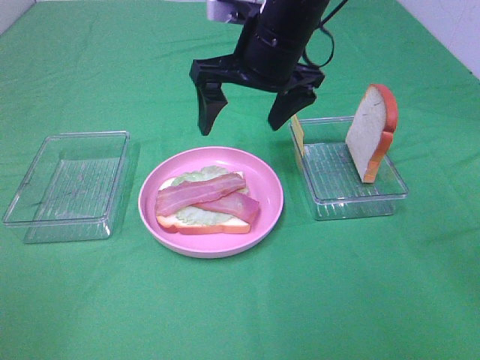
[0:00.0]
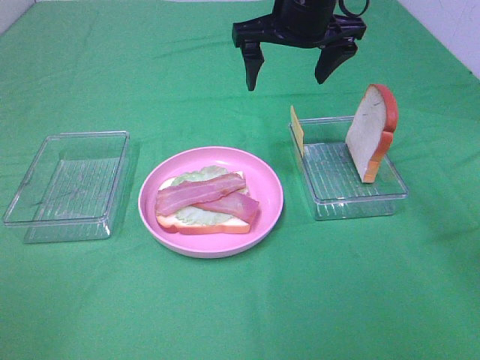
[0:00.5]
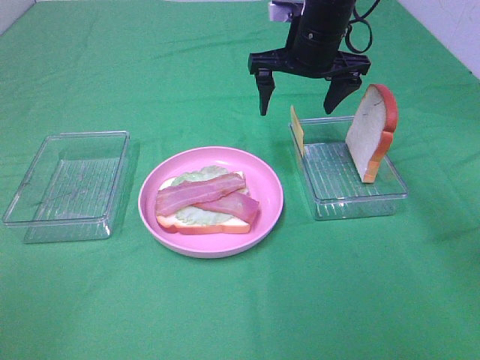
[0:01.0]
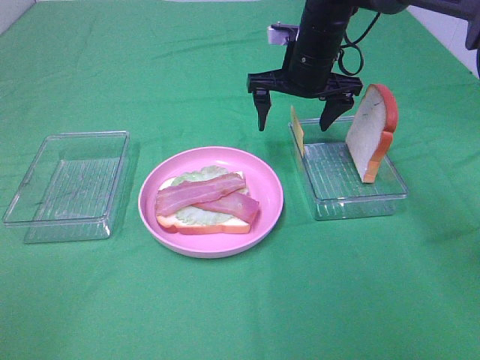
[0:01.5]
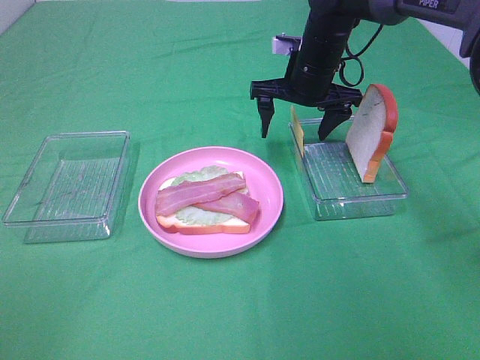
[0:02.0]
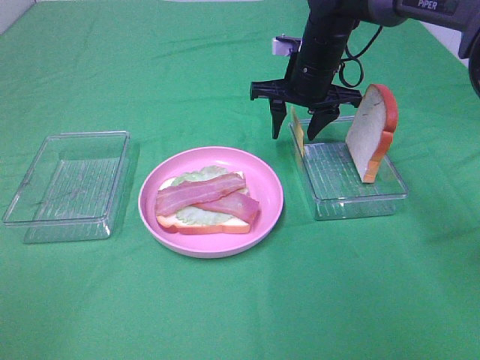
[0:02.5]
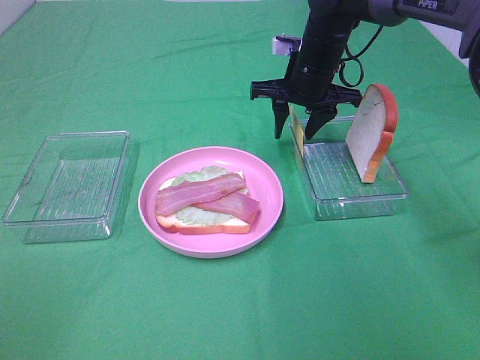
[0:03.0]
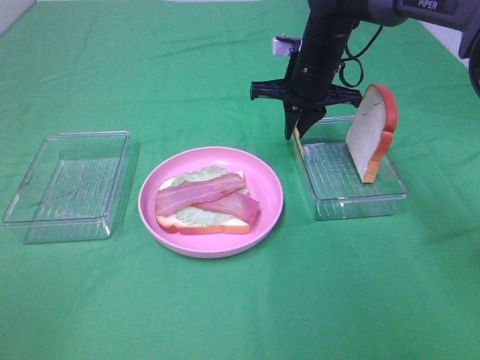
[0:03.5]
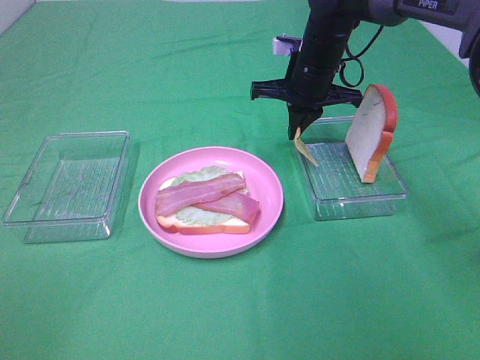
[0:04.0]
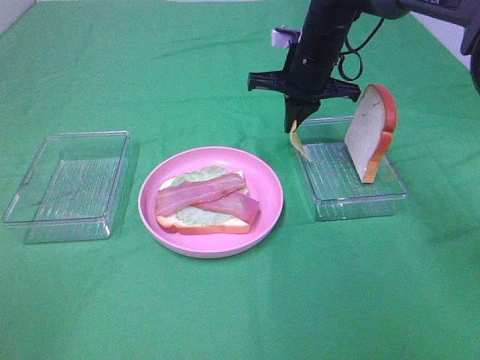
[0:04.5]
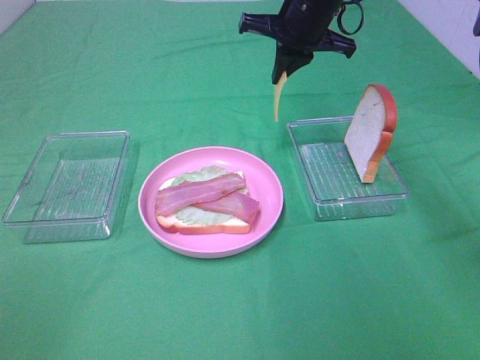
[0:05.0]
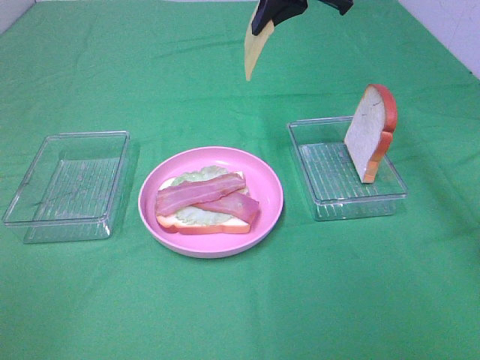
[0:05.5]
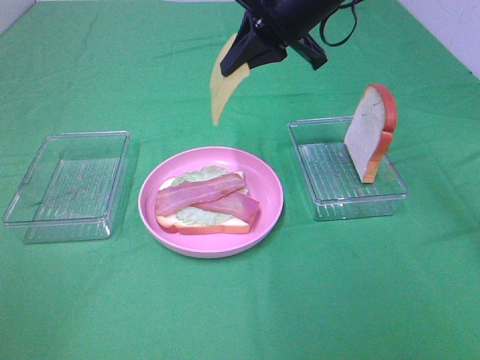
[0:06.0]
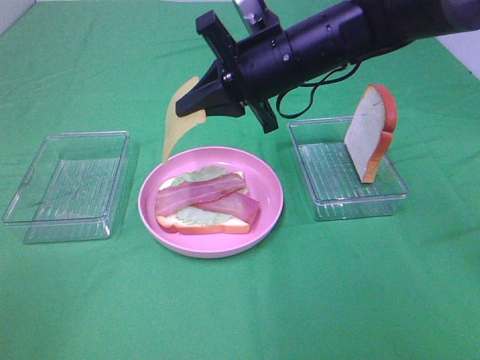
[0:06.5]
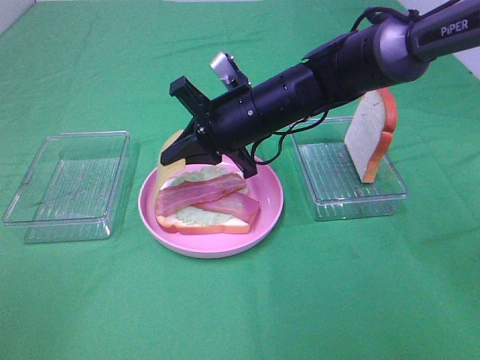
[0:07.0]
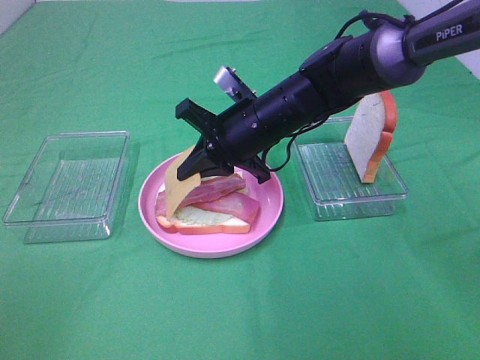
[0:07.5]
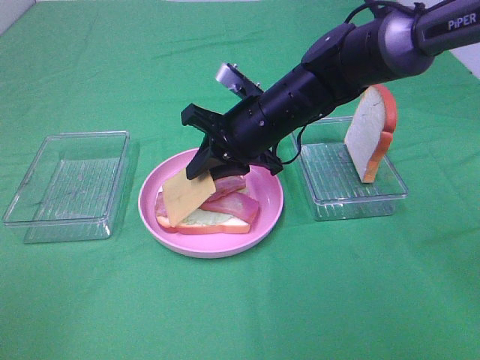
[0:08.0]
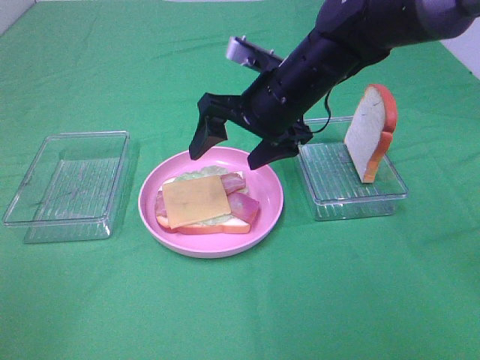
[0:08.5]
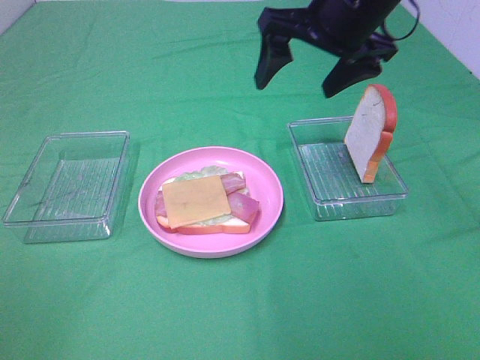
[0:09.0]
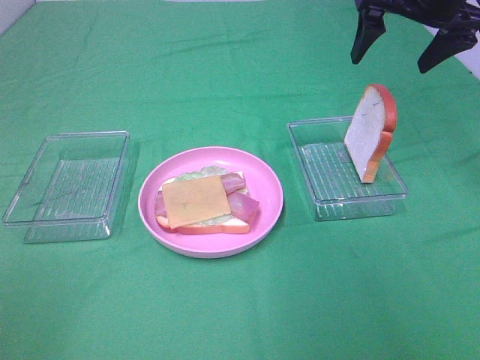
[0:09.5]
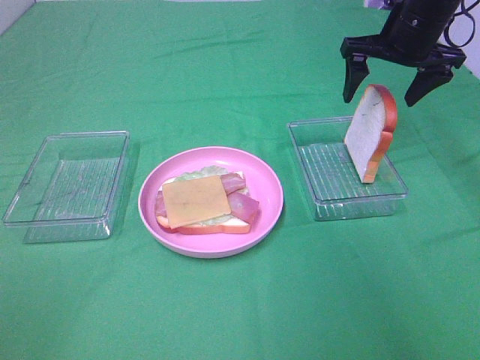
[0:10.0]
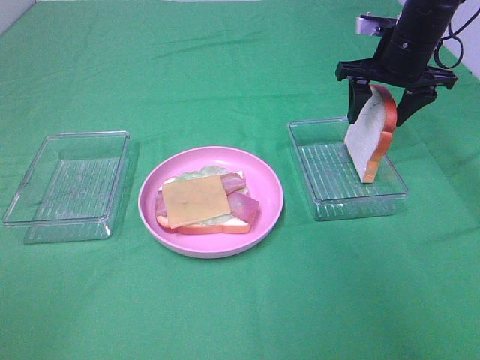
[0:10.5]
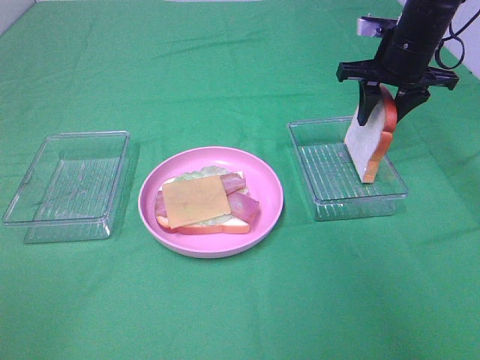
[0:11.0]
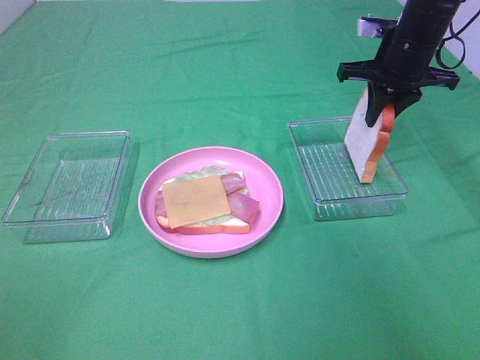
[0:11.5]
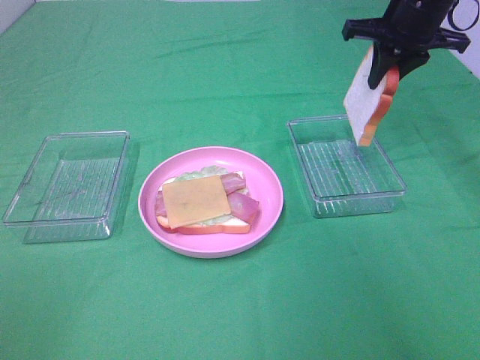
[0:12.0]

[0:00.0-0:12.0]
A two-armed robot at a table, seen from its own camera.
Task of the whole recording: Make sandwiches.
Step, 0:00.0 to 0:03.5: Right hand:grab the cheese slice.
Step, 0:04.0 to 0:08.0: Right hand:place the cheese slice on top of the bacon.
Step, 0:08.5 to 0:11.5: Right hand:grab the bread slice.
0:00.0 to 0:02.0: The right gripper shifts about 15 cm forward, downward and to the right.
0:02.0 to 0:04.0: The right gripper closes up.
0:04.0 to 0:06.0: The right gripper goes about 15 cm upward and backward.
0:06.0 to 0:08.0: The right gripper shifts about 15 cm downward.
0:08.0 to 0:10.0: The right gripper goes approximately 20 cm to the right, forward and upward, and opens up.
0:10.0 to 0:12.0: The right gripper closes its fingers.

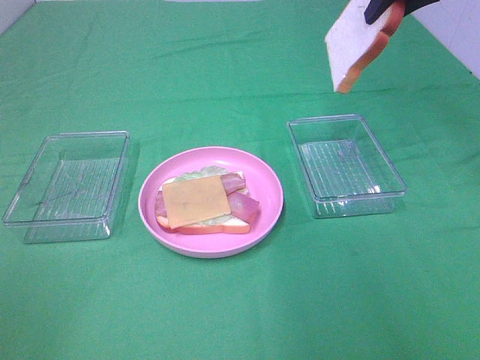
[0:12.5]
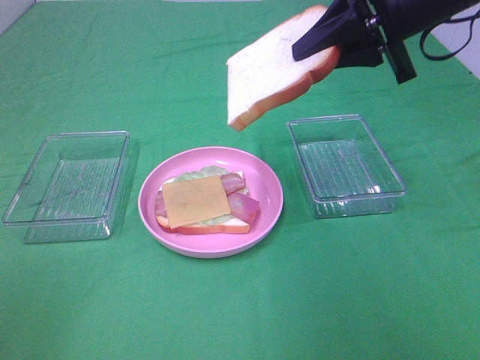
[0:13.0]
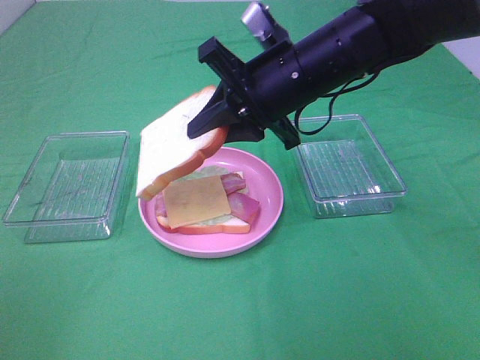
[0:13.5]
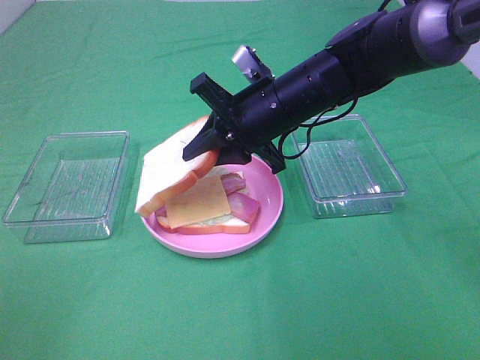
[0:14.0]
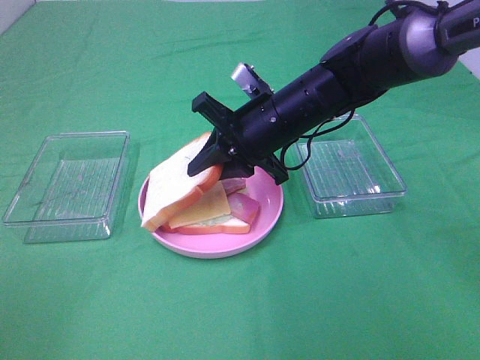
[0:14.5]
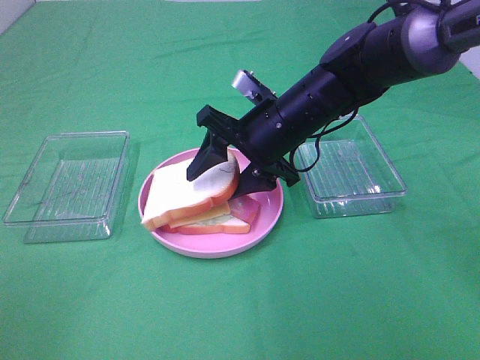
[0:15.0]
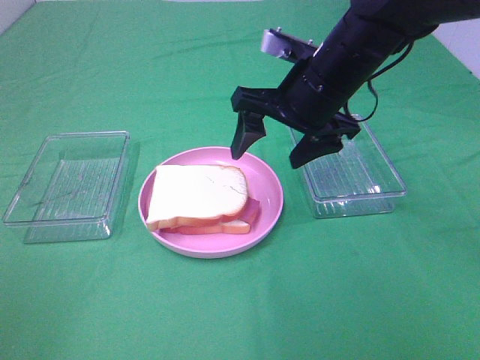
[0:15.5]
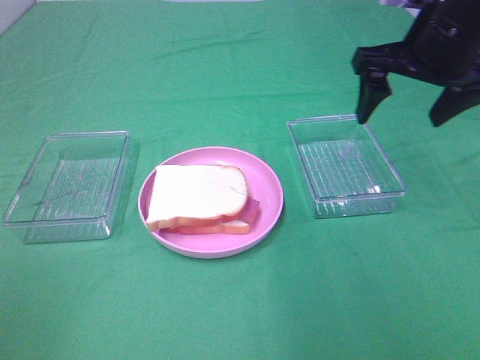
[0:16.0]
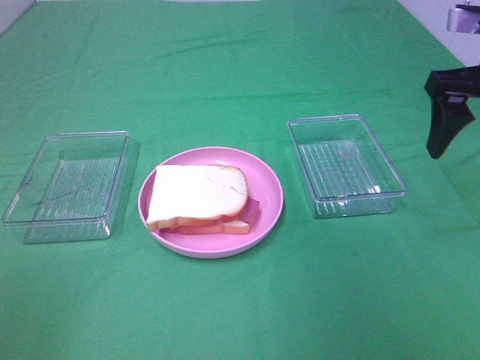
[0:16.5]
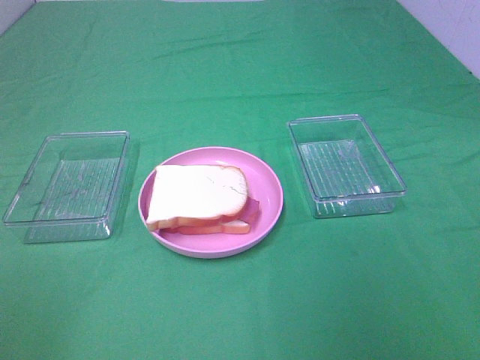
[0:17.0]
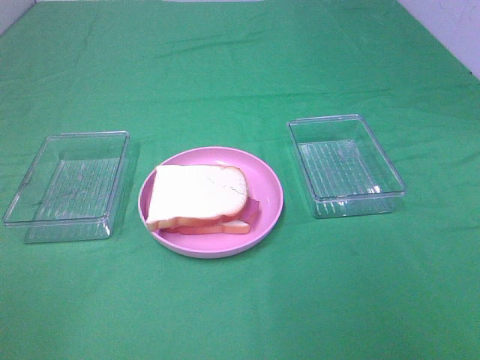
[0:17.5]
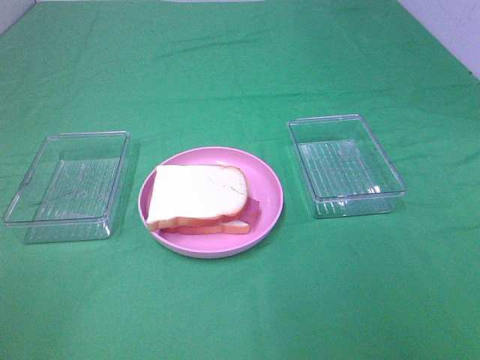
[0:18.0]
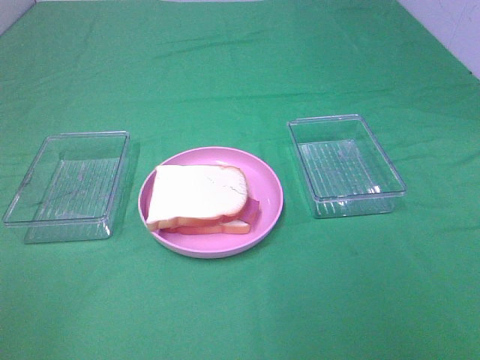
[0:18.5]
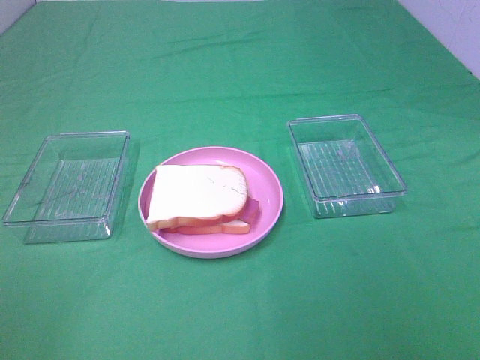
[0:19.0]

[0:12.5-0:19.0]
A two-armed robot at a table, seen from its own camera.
Task of the whole recording: Make sandwiches.
Step, 0:12.5 to 0:15.0: Right hand:place the bread slice on the cheese slice.
0:12.5 to 0:14.5: The right gripper shifts roughly 25 cm downward and to the left.
0:14.5 to 0:17.0: The right gripper is displaced backward, to the right and upward by some 35 cm, and opens.

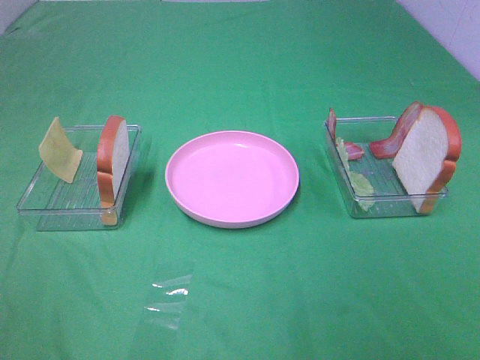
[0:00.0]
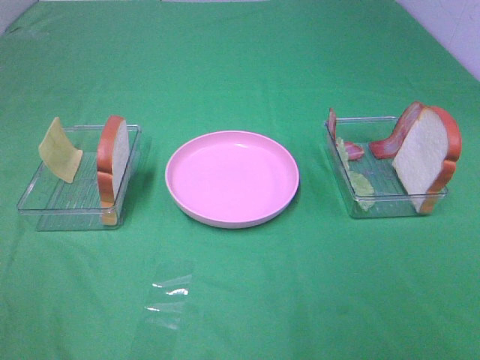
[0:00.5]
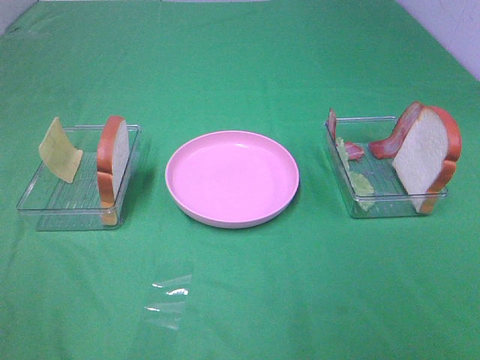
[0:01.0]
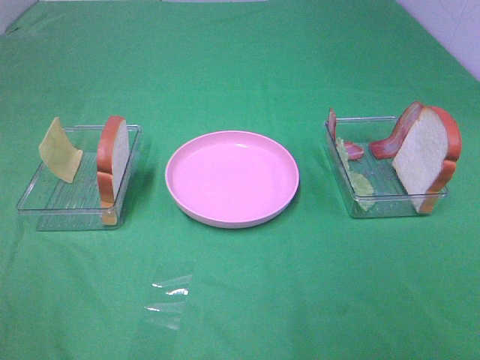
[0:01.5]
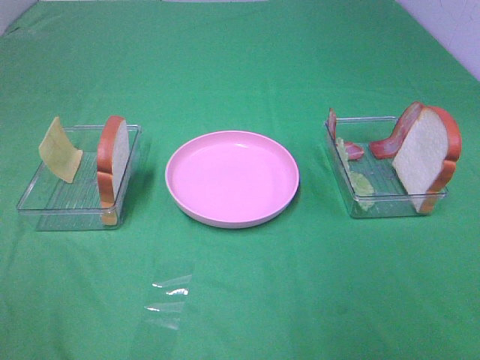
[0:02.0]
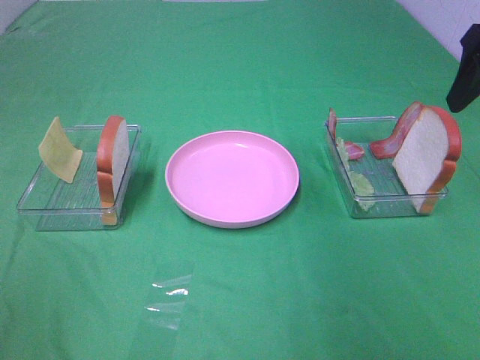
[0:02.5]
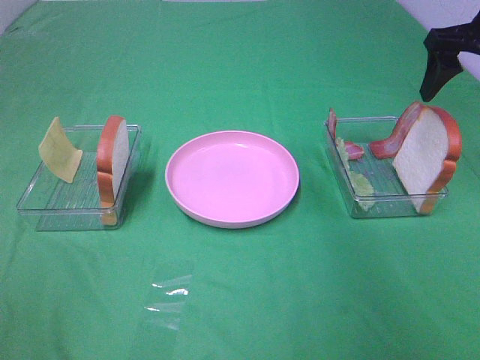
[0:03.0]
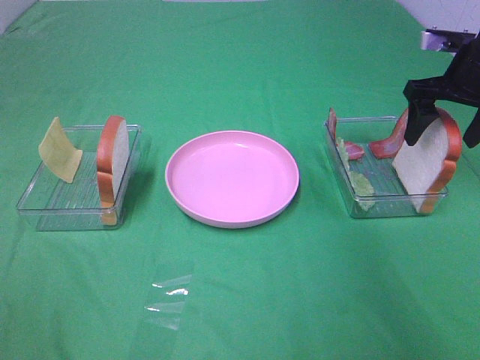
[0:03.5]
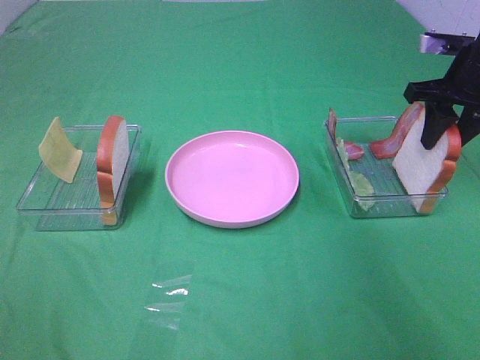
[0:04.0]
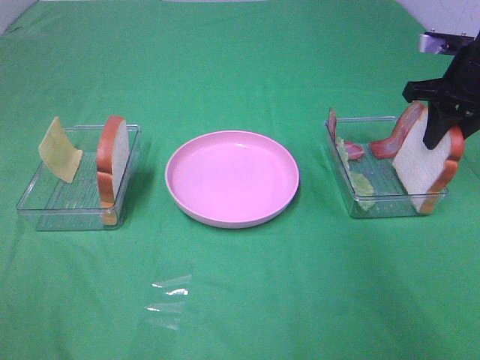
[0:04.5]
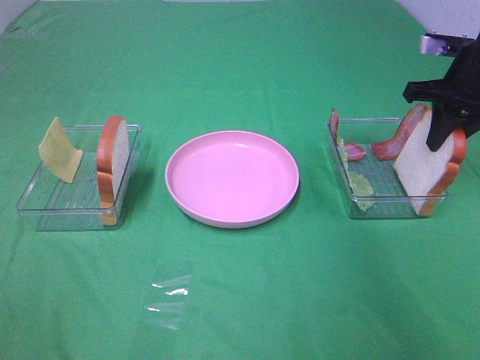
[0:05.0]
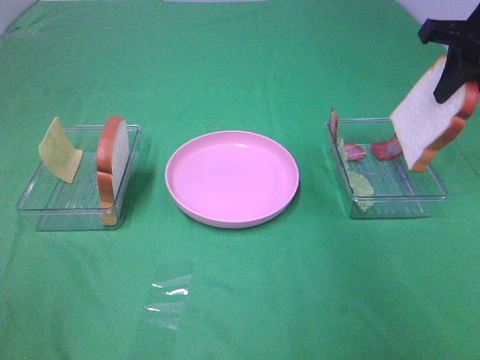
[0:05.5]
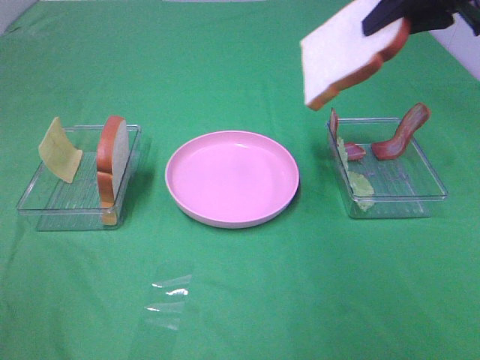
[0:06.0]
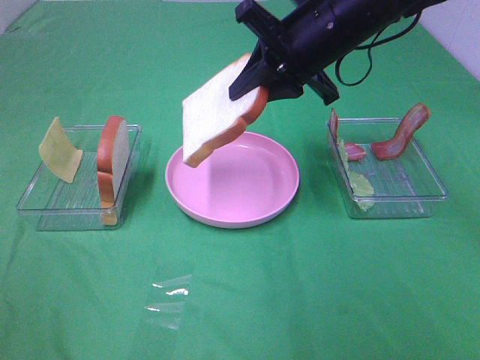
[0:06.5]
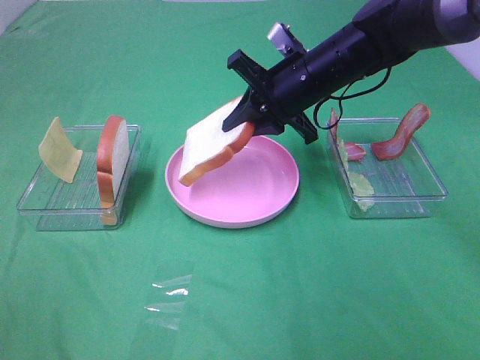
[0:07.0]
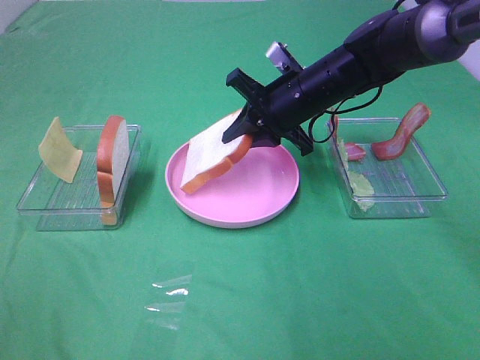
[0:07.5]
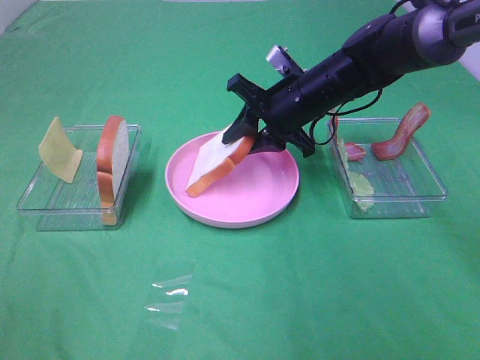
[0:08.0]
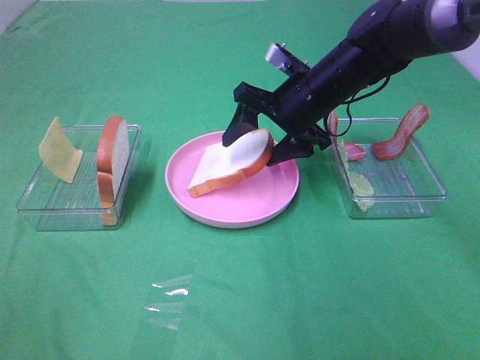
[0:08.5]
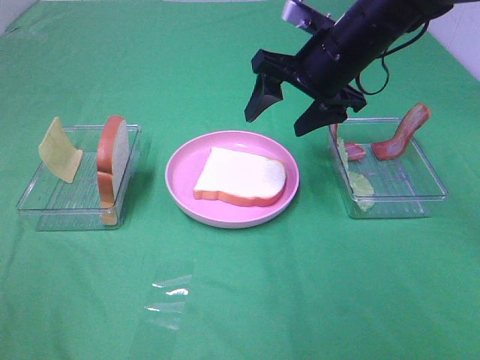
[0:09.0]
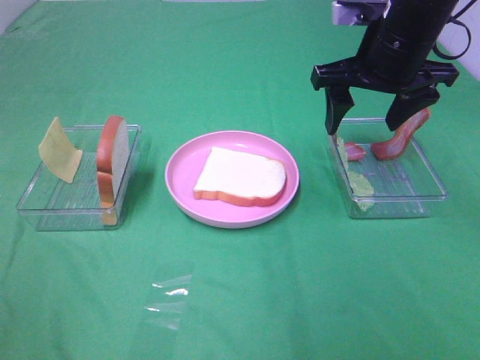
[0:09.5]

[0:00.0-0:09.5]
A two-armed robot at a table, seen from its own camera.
Task of the whole recording: Make sandwiches.
Step, 0:00.0 to 0:04.5: Right hand:grab the bread slice.
Step, 0:05.0 to 0:08.5: Right hand:place the bread slice on the plate.
0:02.0 to 0:04.0: The right gripper is displaced forward by roughly 30 cm, and closes its fingers.
0:04.0 to 0:05.5: The right gripper is displaced upward by about 10 cm.
0:05.5 to 0:07.5: The right gripper moves to the left and downward, some 25 cm.
0:07.5 to 0:09.5: The right gripper goes some 15 cm upward and to the right, and opens up.
